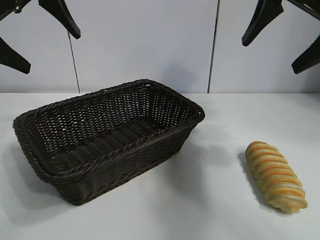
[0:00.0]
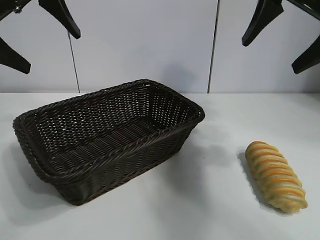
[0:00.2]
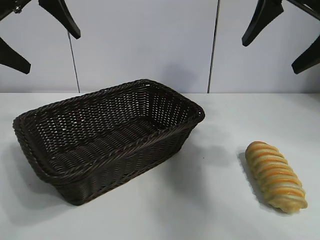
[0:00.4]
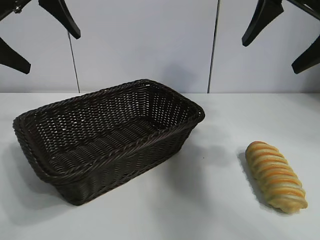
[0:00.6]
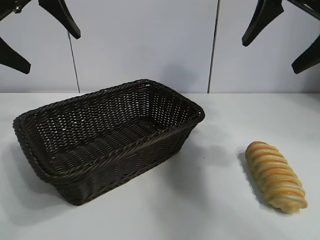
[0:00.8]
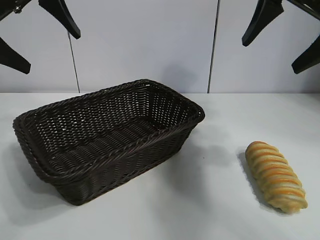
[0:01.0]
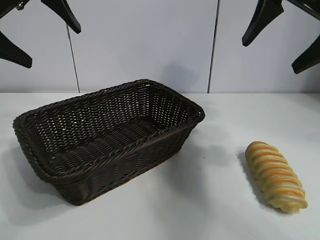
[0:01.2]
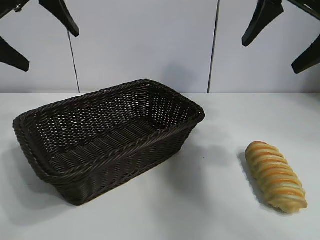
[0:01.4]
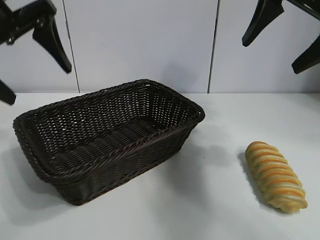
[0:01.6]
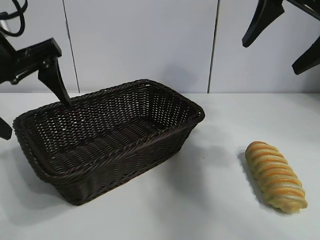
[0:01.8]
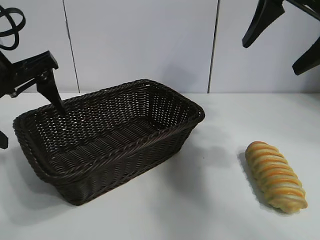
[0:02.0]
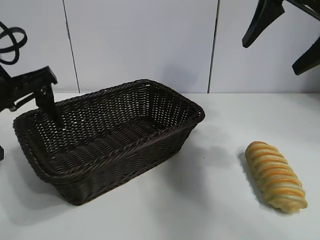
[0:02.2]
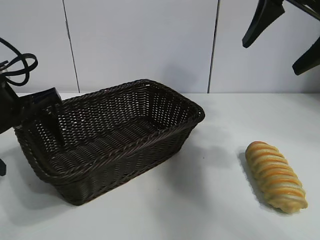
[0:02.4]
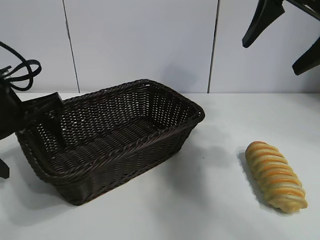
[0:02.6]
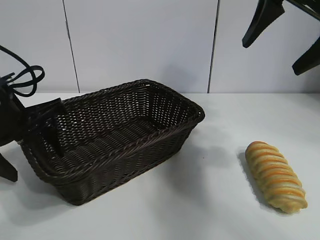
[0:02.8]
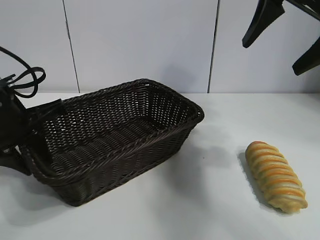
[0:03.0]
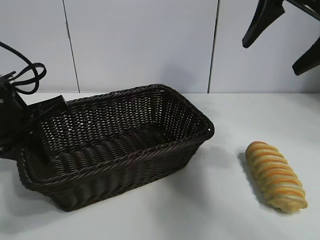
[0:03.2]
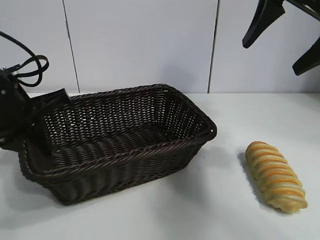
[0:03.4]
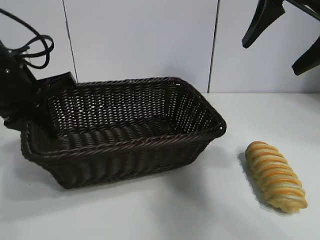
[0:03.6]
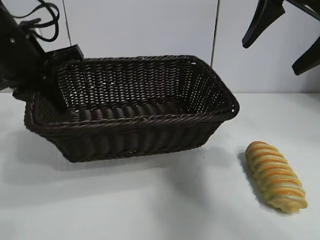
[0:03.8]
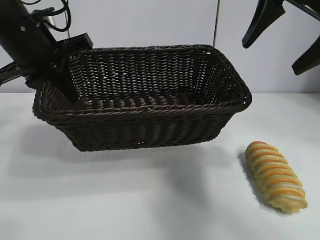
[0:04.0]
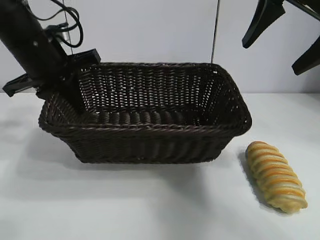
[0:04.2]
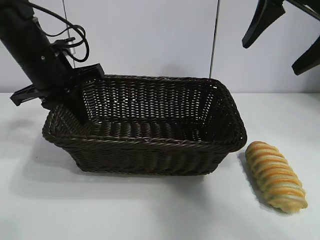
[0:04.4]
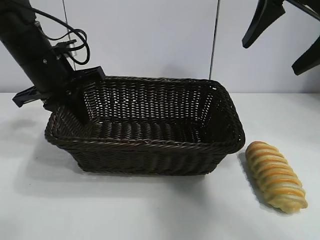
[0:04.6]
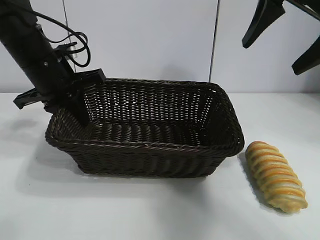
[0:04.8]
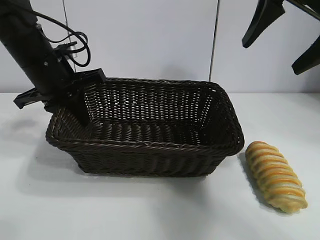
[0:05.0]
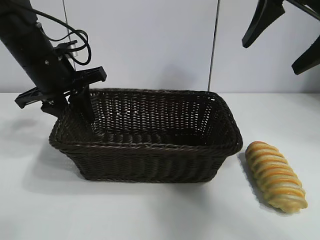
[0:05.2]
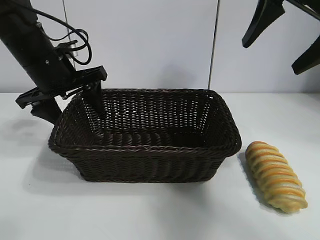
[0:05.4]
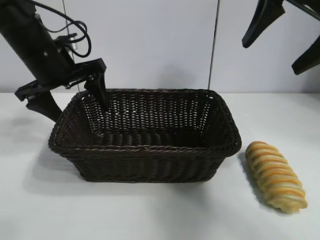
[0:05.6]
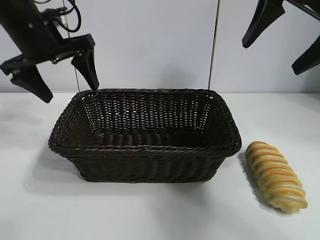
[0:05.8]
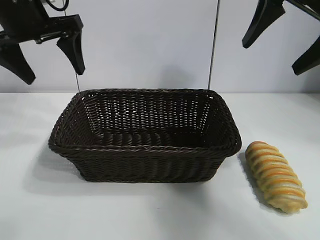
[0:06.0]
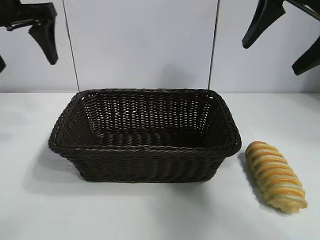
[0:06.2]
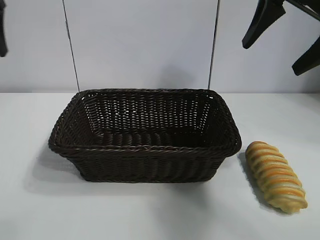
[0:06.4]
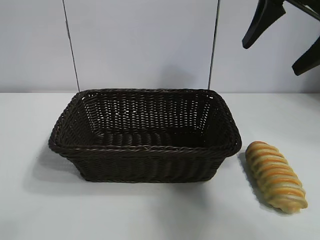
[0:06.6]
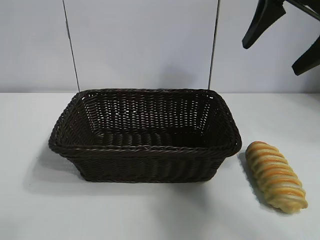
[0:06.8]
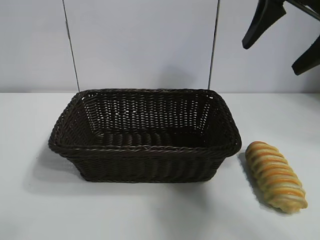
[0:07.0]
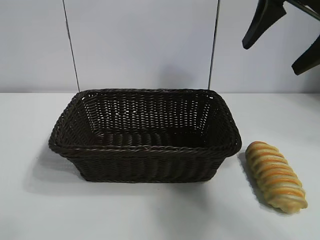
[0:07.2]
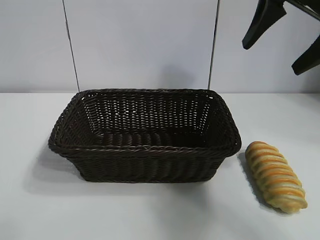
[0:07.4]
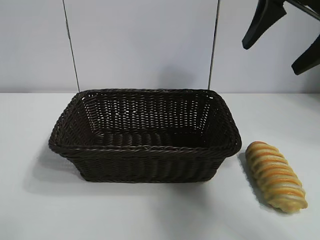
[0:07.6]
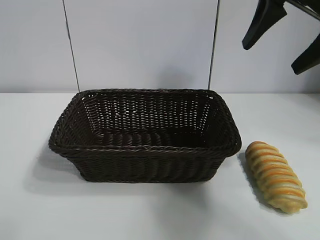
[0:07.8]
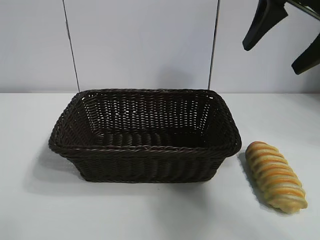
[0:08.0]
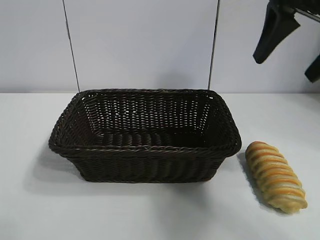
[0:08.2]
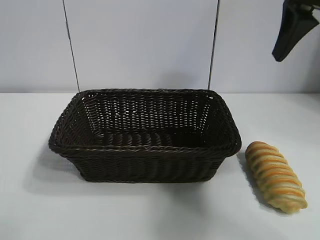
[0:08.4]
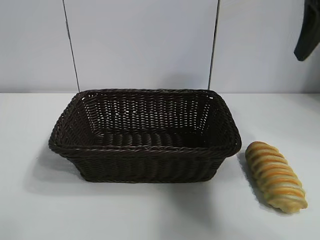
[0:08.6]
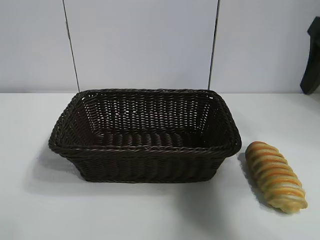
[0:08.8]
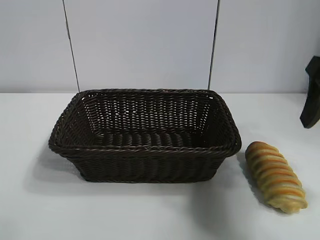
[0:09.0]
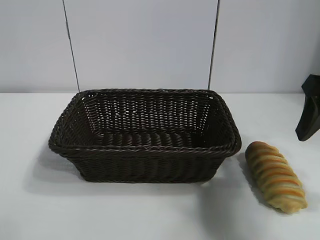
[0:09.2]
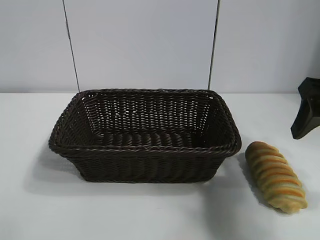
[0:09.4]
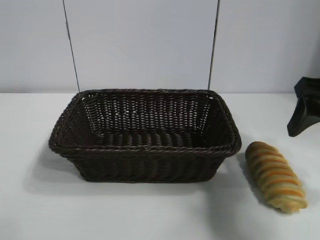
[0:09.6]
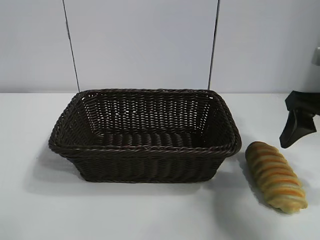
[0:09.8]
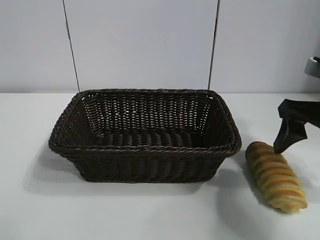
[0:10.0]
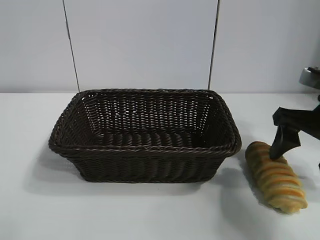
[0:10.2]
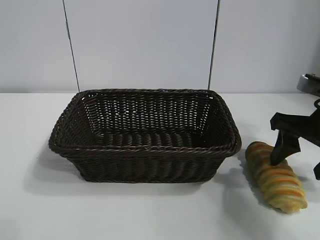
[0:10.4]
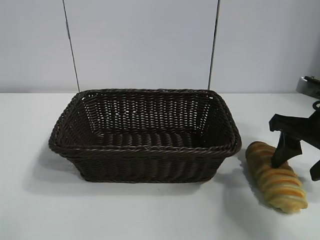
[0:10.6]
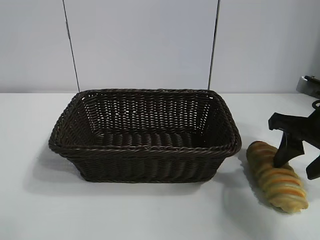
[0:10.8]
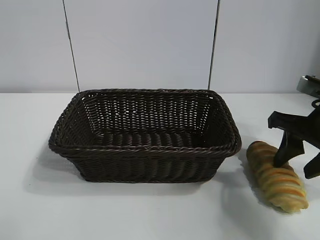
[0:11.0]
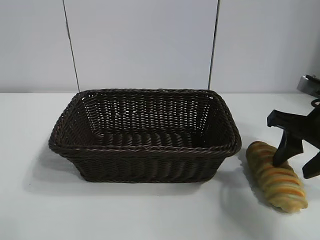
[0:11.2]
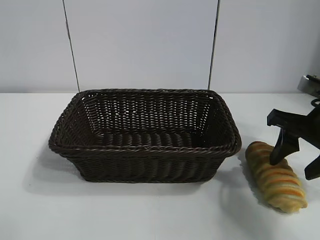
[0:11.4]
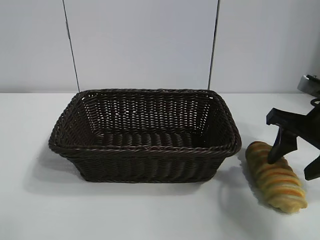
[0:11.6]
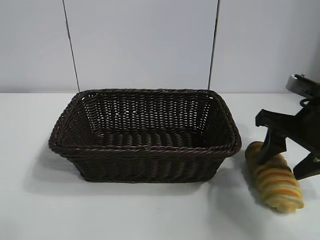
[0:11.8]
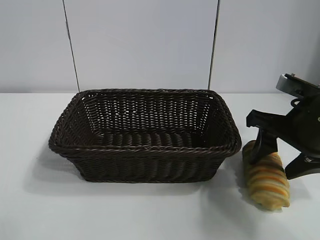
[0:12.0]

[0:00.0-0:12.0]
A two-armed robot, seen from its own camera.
Task of the whole recording: pick up the long bread and put it into the basket.
Step, 0:01.2 to 0:03.0: Grasp the basket with the left gripper.
Step, 0:03.2 to 0:05.4: Place the basket in the center of the table with the left gripper.

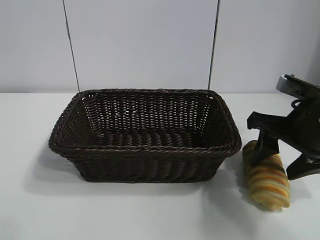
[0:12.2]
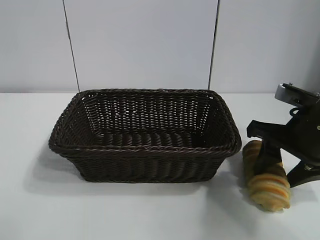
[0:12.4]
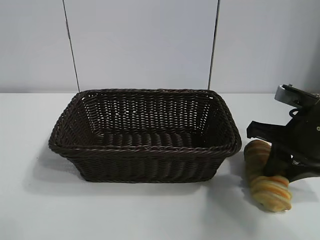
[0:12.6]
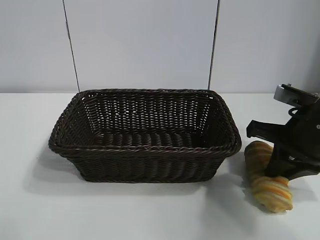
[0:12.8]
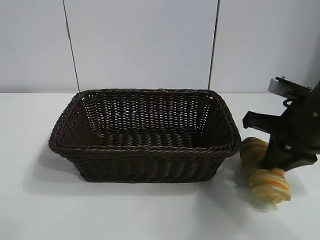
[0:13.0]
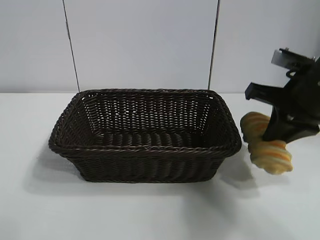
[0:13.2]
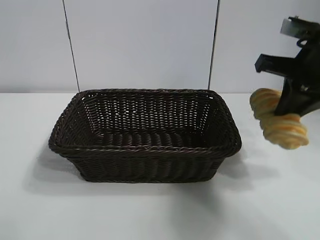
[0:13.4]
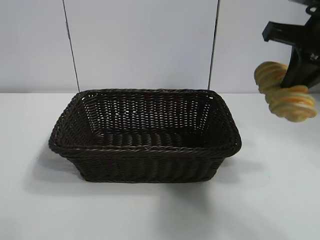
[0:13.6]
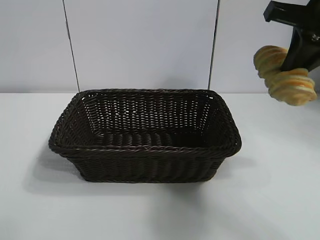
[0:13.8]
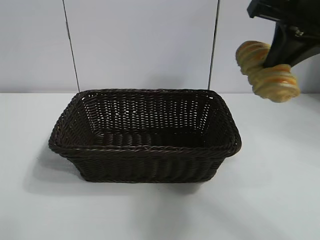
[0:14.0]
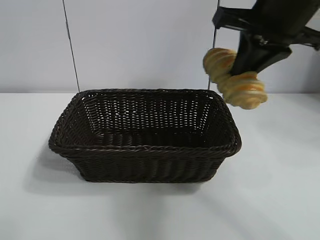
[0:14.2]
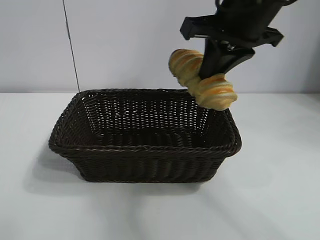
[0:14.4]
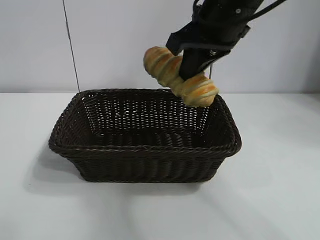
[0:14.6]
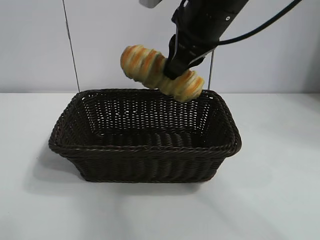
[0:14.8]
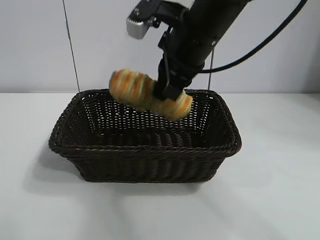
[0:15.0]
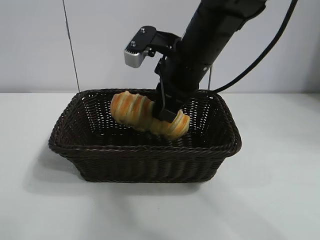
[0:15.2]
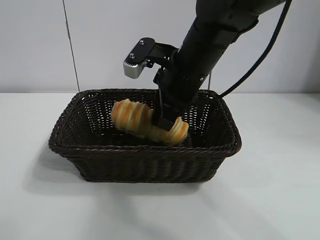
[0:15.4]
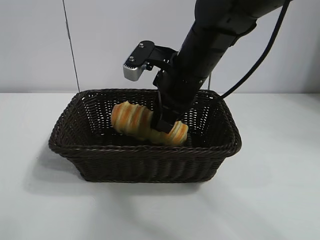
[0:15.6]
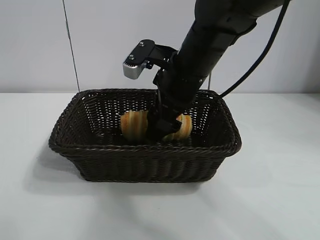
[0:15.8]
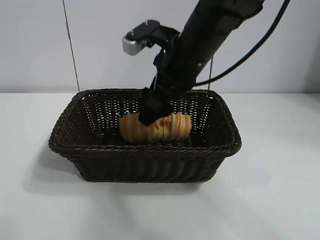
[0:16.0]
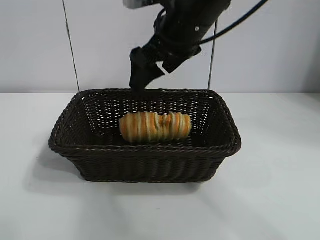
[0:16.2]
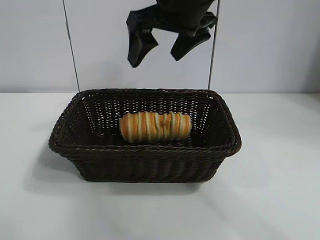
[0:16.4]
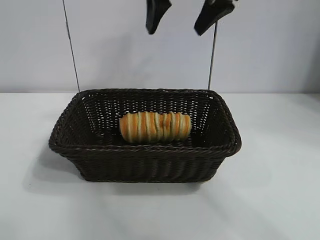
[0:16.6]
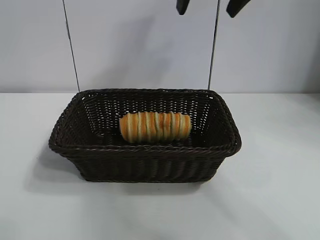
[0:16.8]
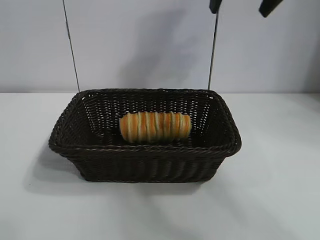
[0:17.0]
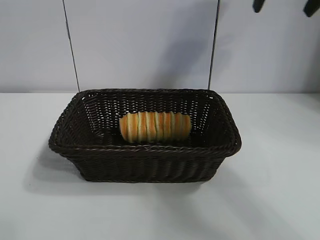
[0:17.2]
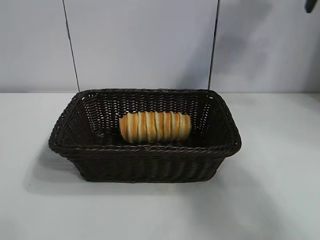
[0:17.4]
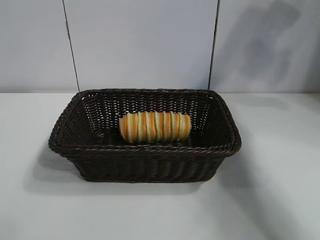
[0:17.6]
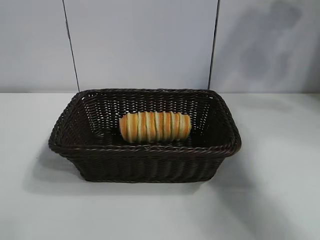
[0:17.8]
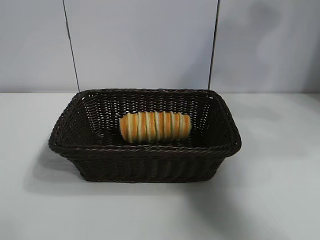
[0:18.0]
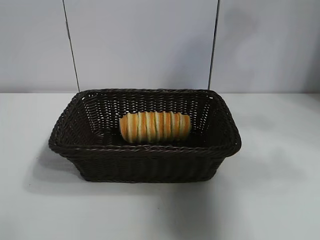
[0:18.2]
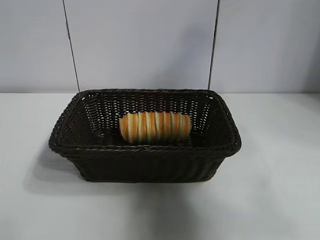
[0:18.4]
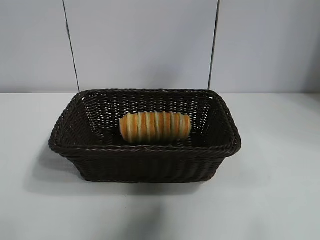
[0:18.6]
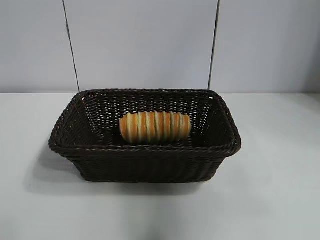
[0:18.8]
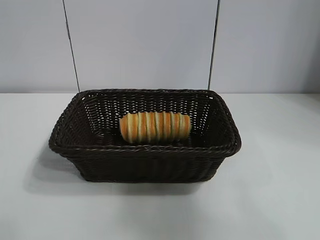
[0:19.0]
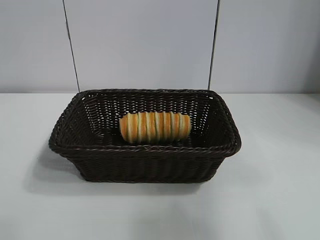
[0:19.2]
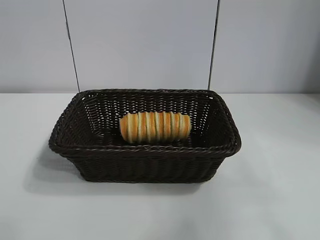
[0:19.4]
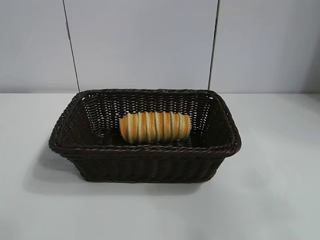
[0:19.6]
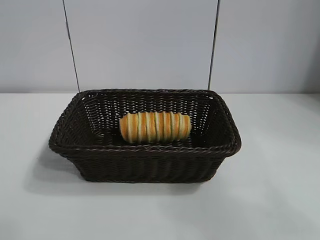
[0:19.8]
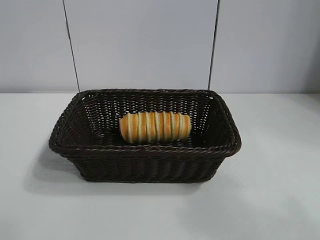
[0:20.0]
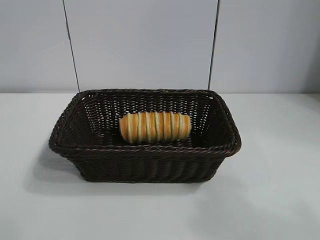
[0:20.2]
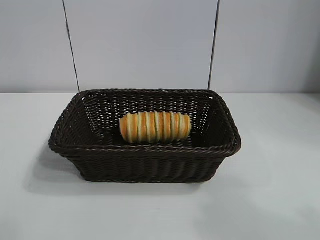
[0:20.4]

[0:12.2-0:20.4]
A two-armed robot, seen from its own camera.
Task of the whole recording: pick up the long bread and put it into the basket.
Step, 0:13.0 to 0:16.0: Place the long bread in the basket with right gripper.

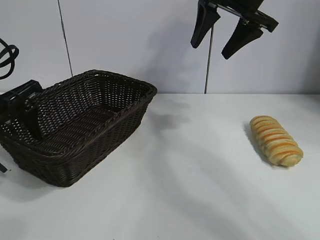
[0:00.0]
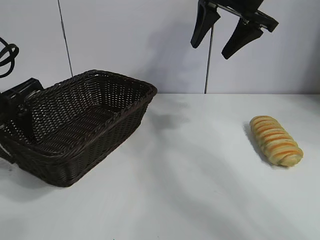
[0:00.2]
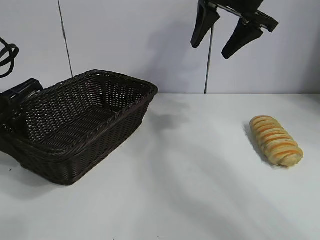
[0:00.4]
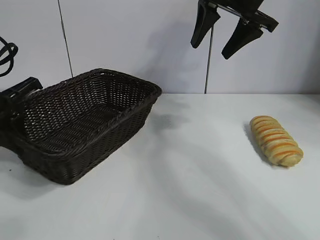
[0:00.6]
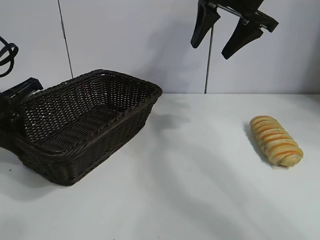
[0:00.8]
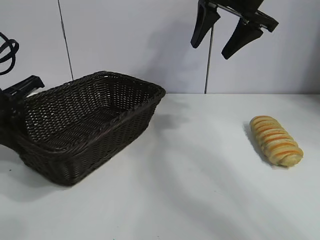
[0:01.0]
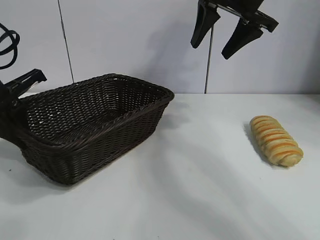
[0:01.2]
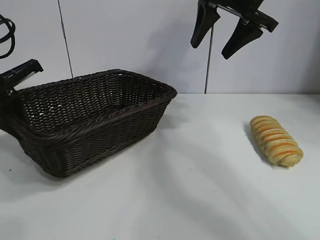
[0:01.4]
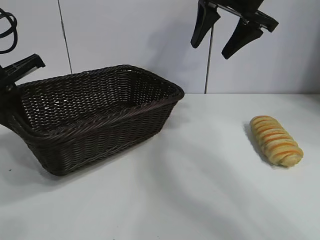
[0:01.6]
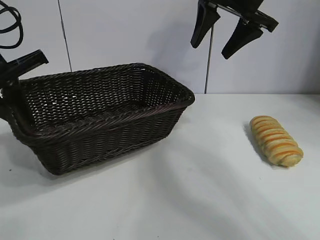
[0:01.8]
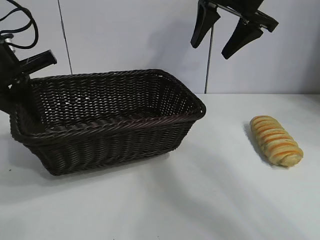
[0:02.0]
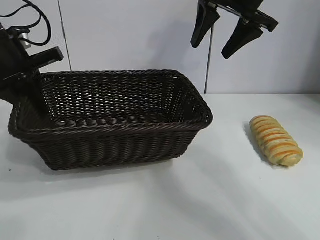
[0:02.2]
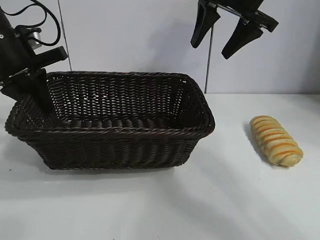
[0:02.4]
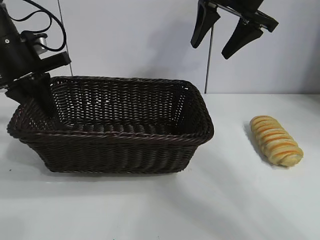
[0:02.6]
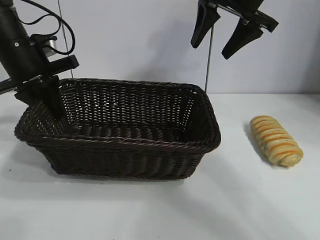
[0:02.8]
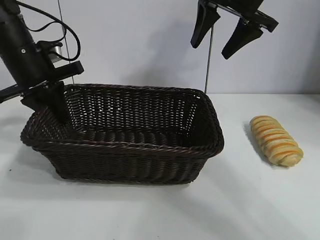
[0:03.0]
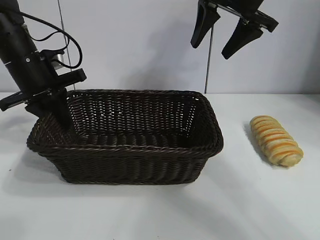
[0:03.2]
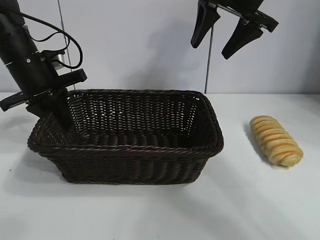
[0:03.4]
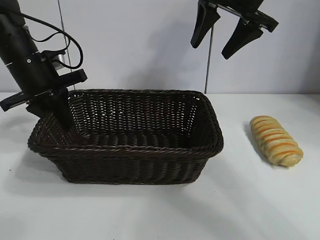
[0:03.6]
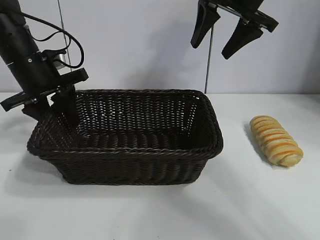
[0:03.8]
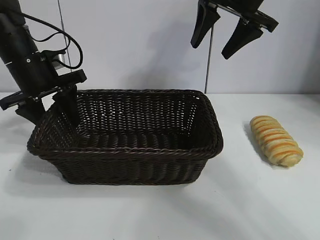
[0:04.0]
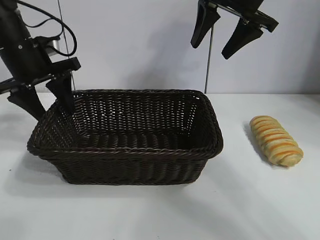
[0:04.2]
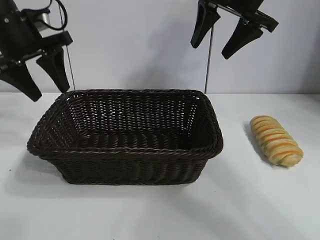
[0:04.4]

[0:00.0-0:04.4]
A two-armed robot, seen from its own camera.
Task of the whole recording: pick up the long bread and put it into the basket.
Step, 0:00.6 to 0:04.0: Place the basket in the center of the table with the left gripper.
